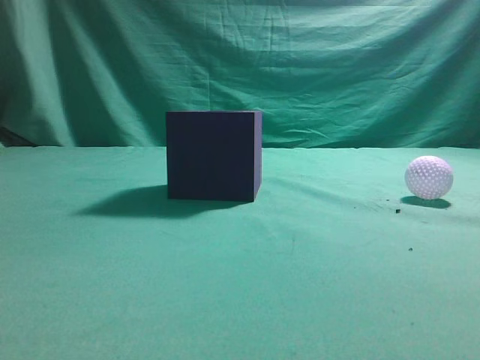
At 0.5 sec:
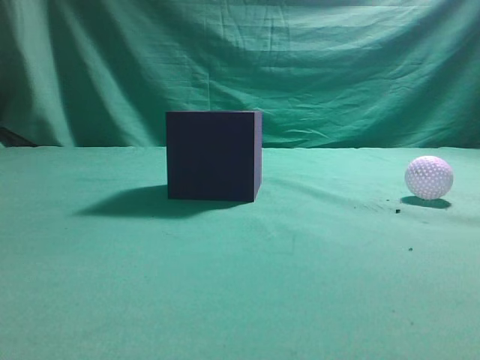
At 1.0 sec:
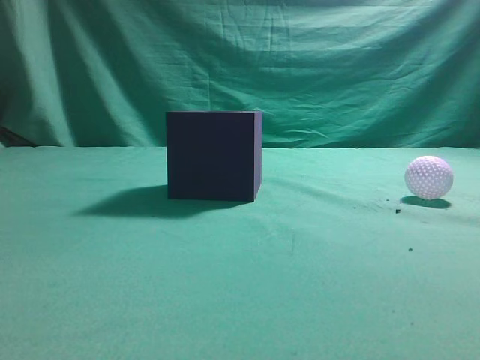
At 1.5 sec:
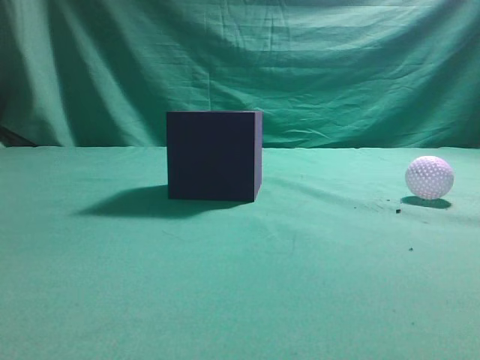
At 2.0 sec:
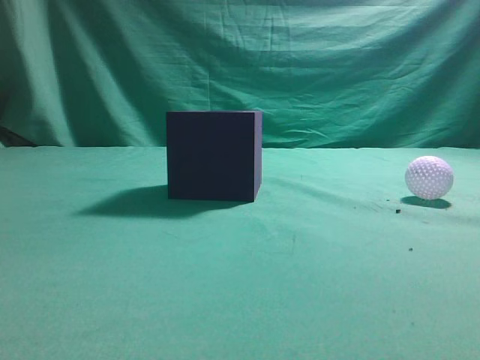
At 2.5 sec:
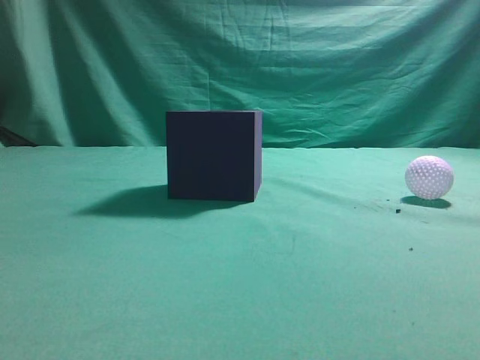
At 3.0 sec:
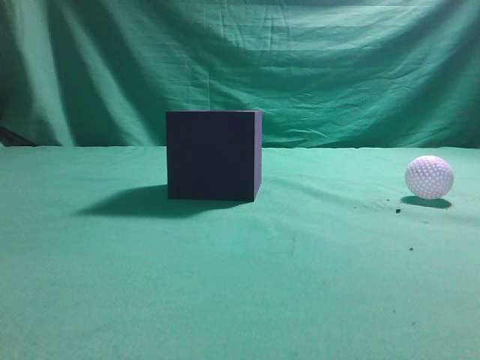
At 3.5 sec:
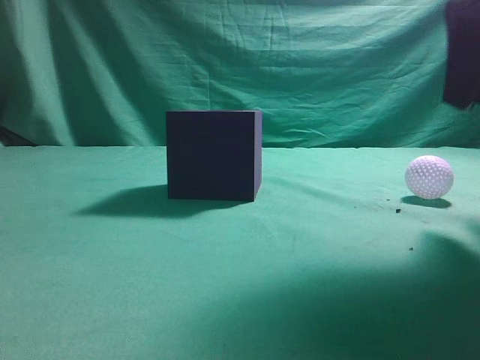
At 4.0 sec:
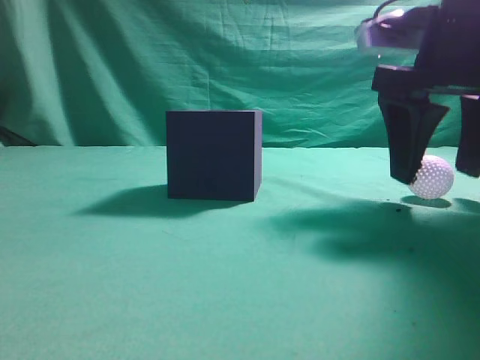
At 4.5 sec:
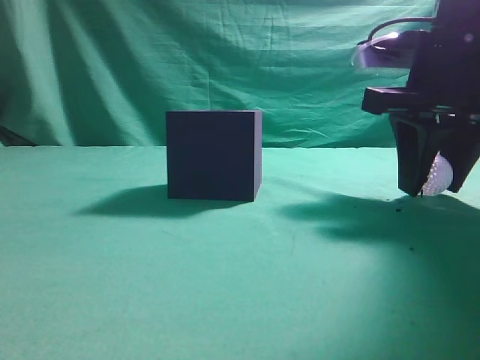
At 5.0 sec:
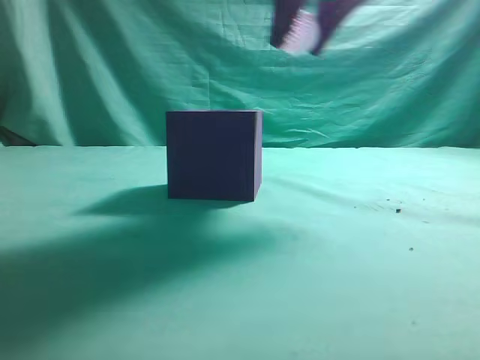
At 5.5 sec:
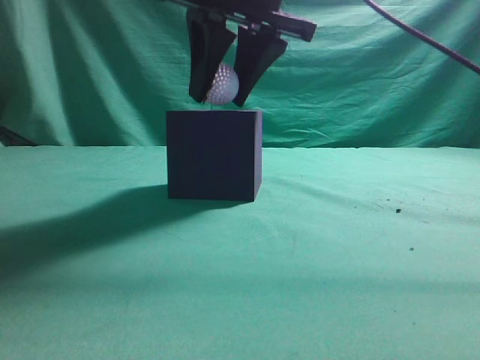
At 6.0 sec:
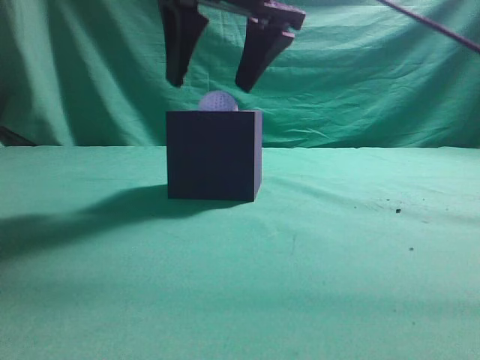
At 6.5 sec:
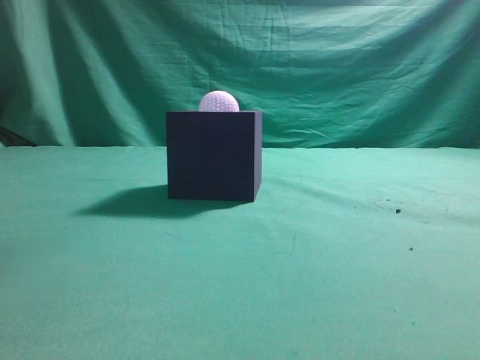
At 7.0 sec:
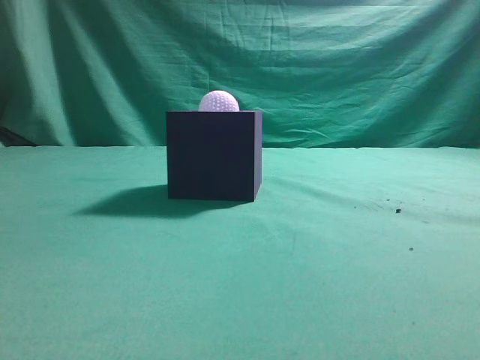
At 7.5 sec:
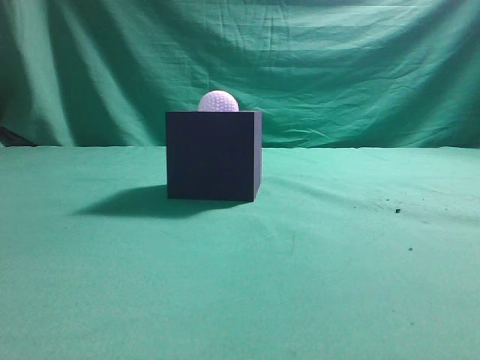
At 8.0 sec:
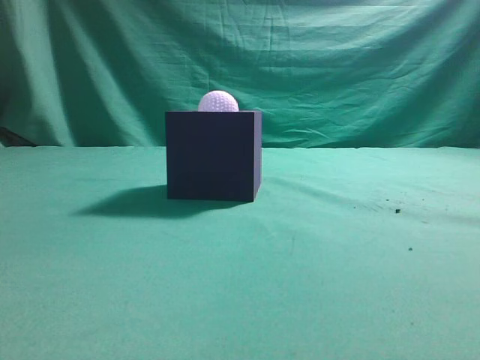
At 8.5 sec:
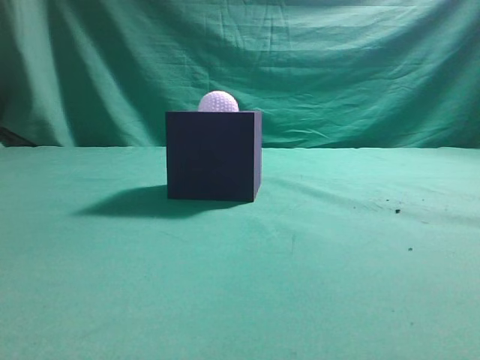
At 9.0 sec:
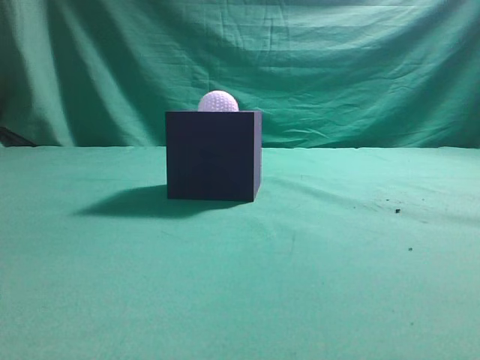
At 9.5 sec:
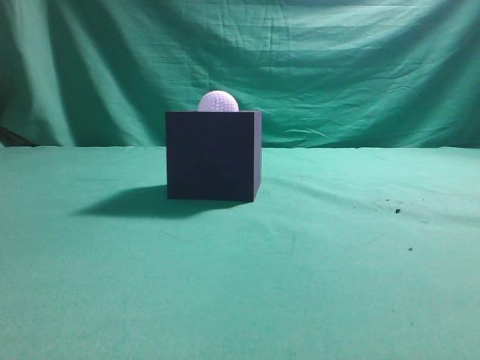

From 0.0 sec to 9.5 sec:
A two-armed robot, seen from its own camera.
Task of the whole recording: Pick up the ball and place it in the circular groove above the cube.
Step, from 0.0 sec to 4.5 sec: Grasp the sphere on the table.
Step, from 5.0 sec to 6.0 sec: Place the sphere into the sphere-shaped recess.
From 2.0 sec to 4.0 sec: The right gripper goes roughly 30 cm forward and to the left, and opens its fingers.
From 4.0 sec to 5.5 sec: The right gripper moves to the left and upward, approximately 15 cm, and closes up.
From 5.5 sec to 7.5 sec: The right gripper goes some 30 cm backward, to the right and upward, and closes.
